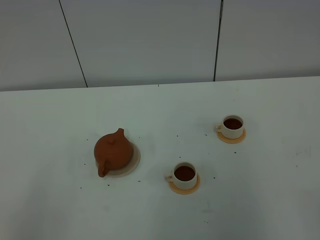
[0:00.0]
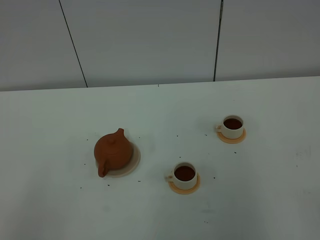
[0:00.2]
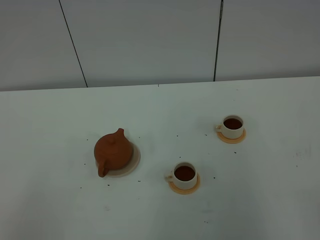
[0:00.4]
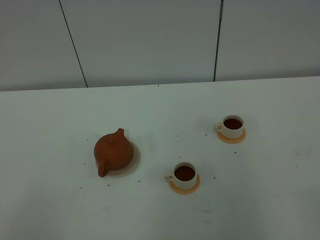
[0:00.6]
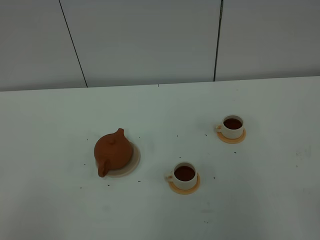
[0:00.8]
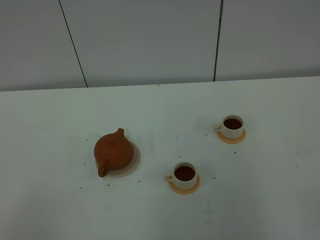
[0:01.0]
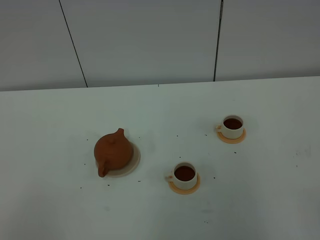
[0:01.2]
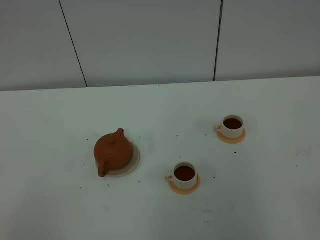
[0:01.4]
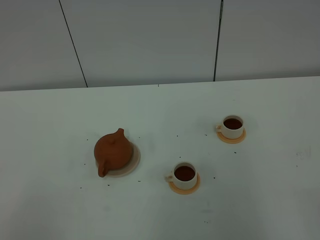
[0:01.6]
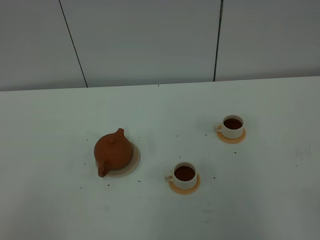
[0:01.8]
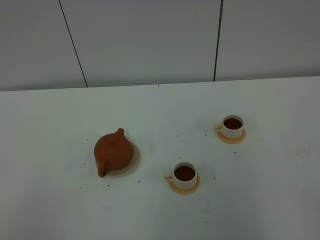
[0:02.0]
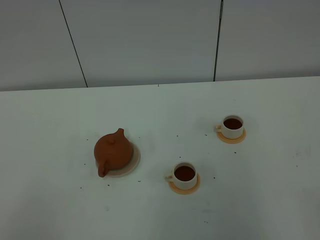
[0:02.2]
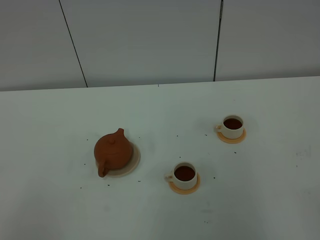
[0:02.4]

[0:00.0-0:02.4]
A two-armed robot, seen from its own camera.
Task of the whole recording: grasp the brown teapot and pour the tea into the two white teacups one by one, put the brown teapot back in its original place.
0:01.2 to 0:02.4: Neither gripper changes place.
